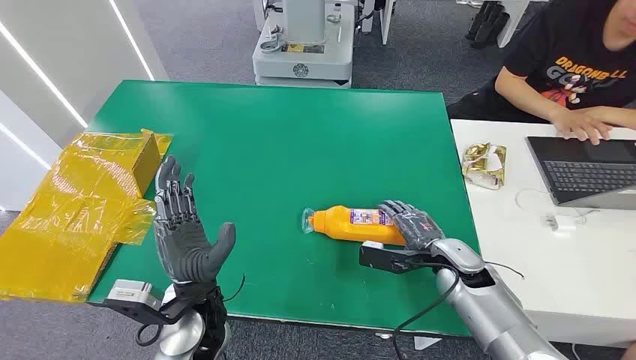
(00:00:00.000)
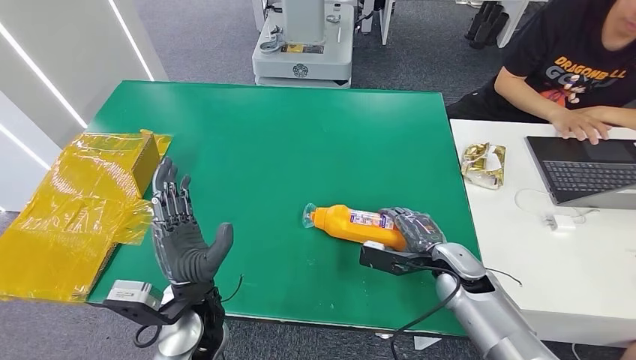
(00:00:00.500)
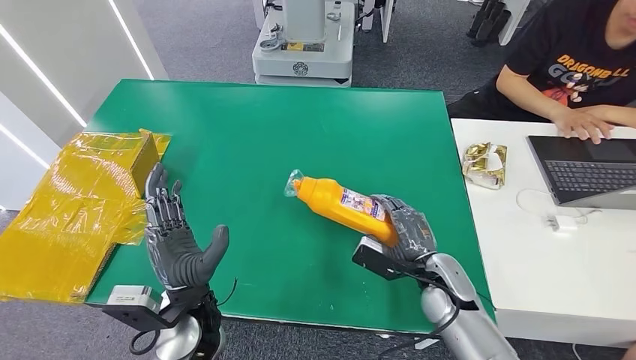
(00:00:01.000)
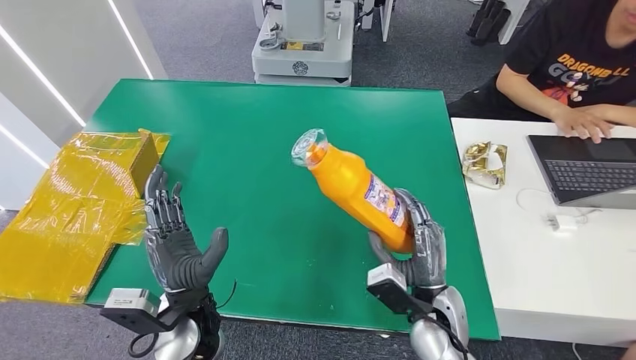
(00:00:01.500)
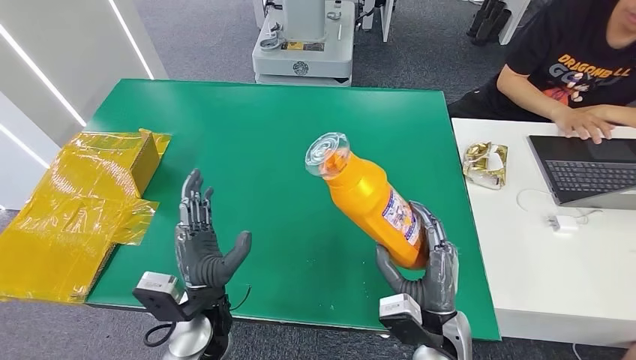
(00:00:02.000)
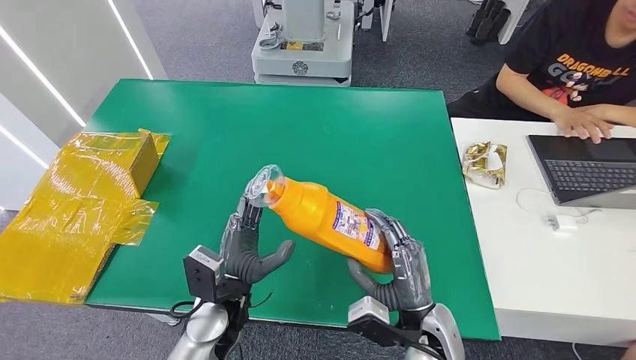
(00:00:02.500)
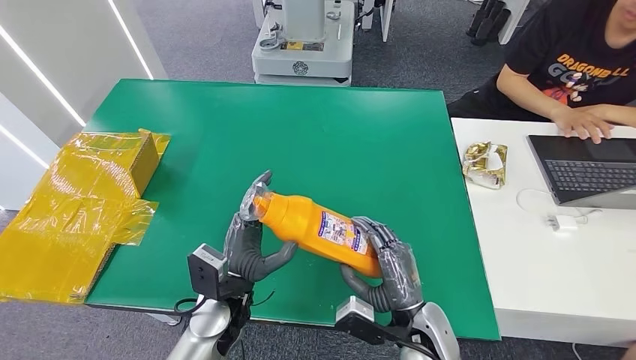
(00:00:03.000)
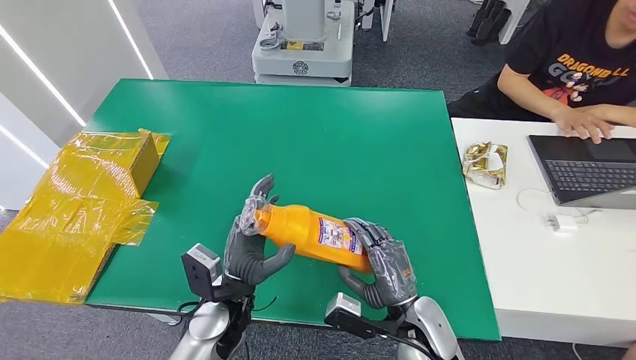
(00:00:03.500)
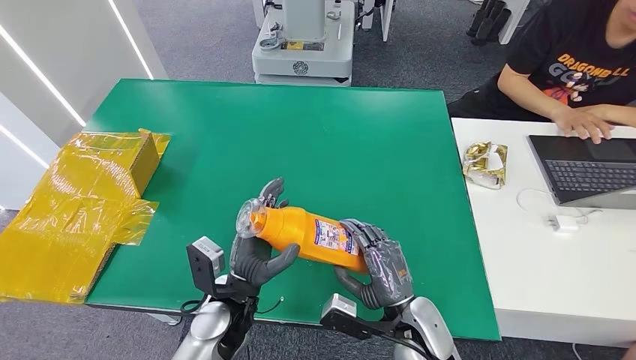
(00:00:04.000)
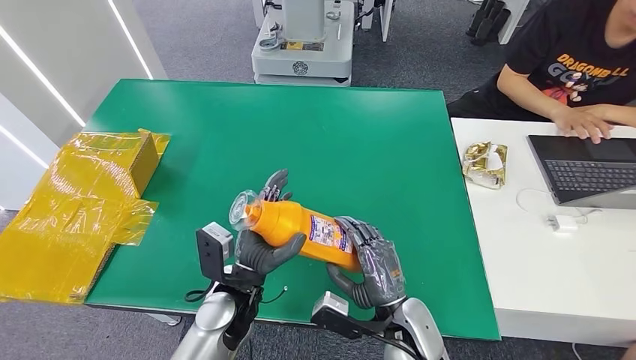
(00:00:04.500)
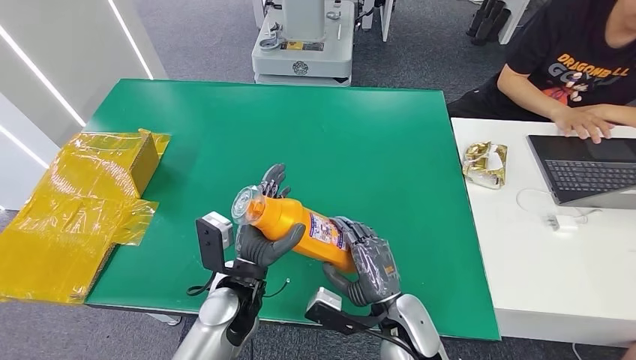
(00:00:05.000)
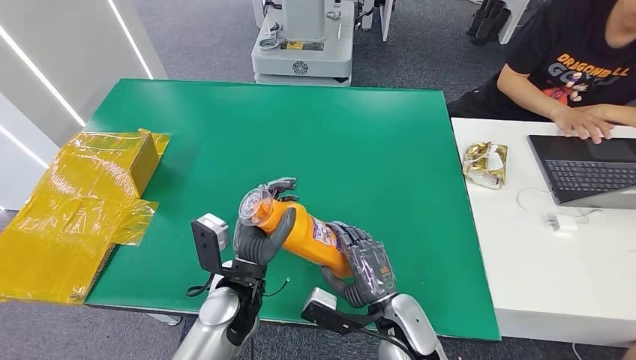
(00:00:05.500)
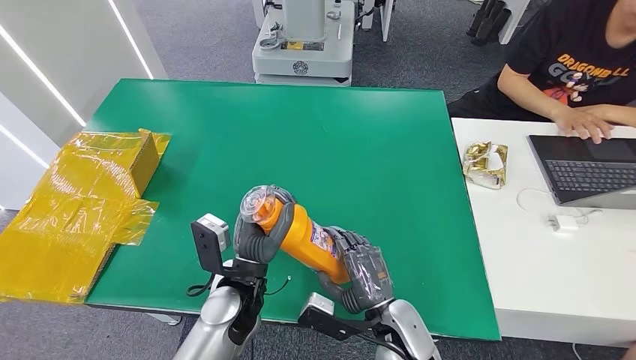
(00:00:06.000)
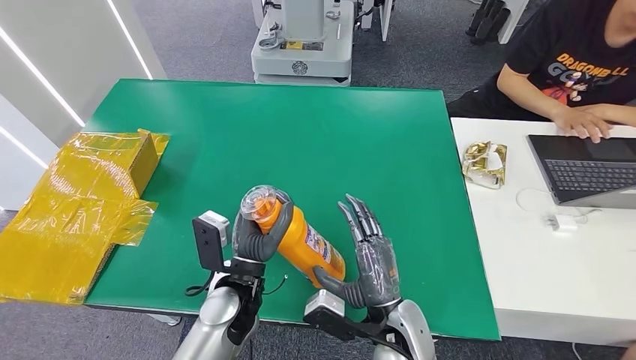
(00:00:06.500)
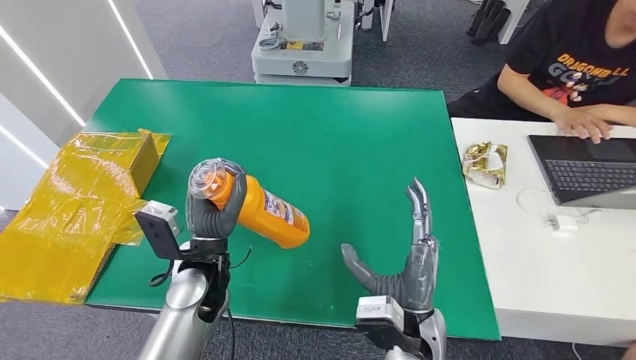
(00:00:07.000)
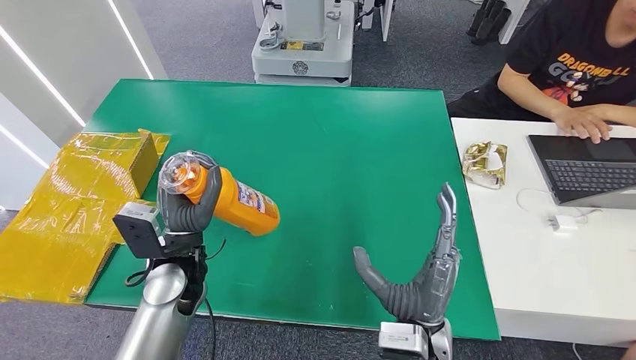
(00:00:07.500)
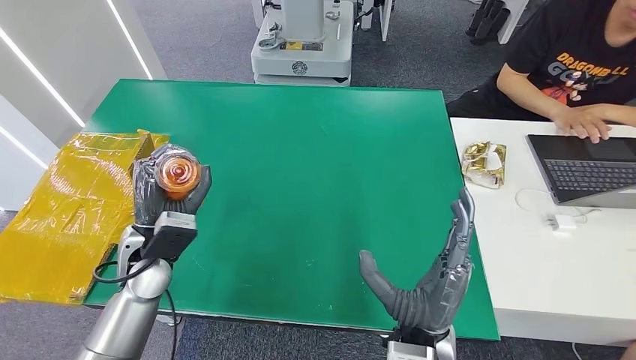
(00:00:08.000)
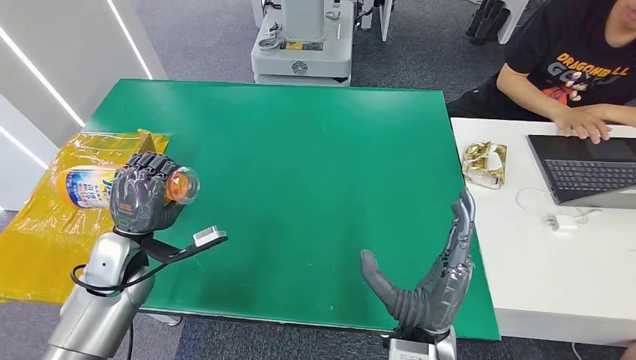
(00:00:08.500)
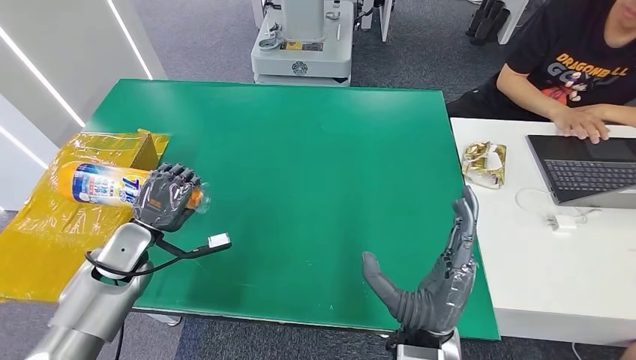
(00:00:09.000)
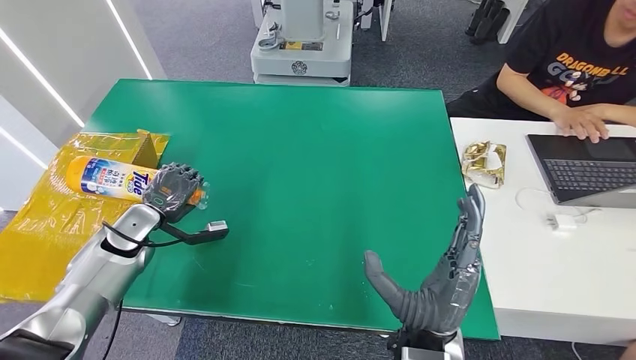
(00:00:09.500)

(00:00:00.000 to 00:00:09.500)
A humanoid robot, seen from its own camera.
Step, 00:00:00.000 - 00:00:02.000: Pick up the bottle from the table.
00:00:04.000 - 00:00:05.500: There are only small adjustments of the hands.
00:00:05.500 - 00:00:07.500: The right hand travels upward by roughly 5 cm; the left hand shifts about 10 cm to the left.
00:00:07.500 - 00:00:09.500: The left hand moves to the left and forward, about 20 cm.

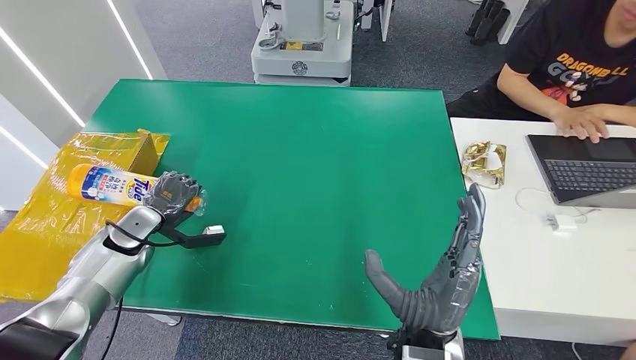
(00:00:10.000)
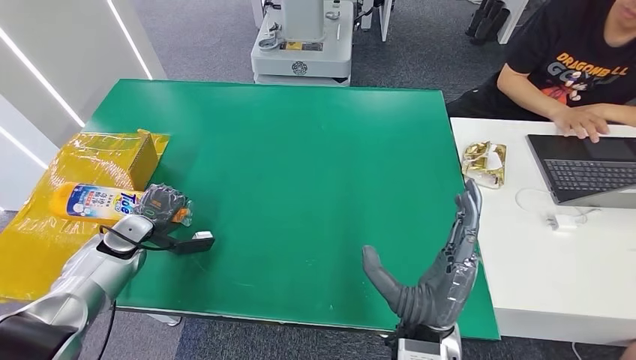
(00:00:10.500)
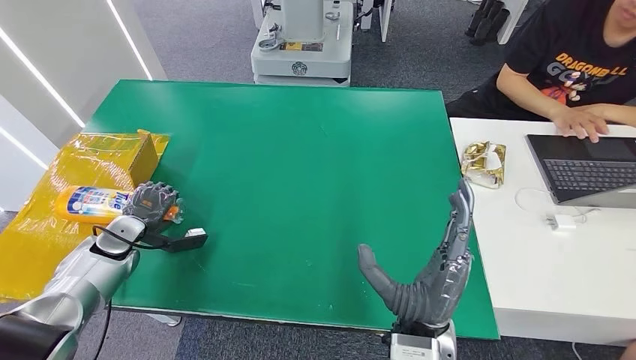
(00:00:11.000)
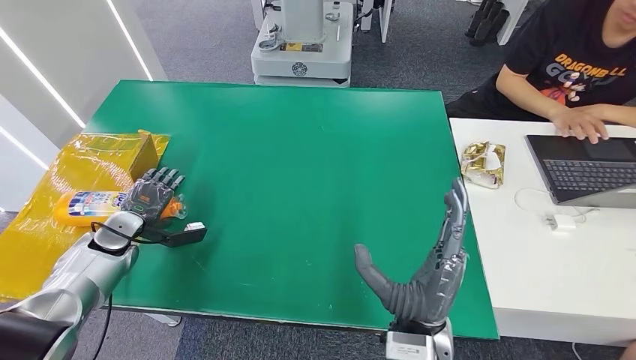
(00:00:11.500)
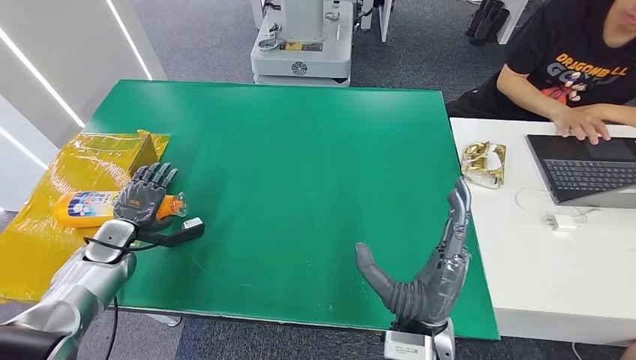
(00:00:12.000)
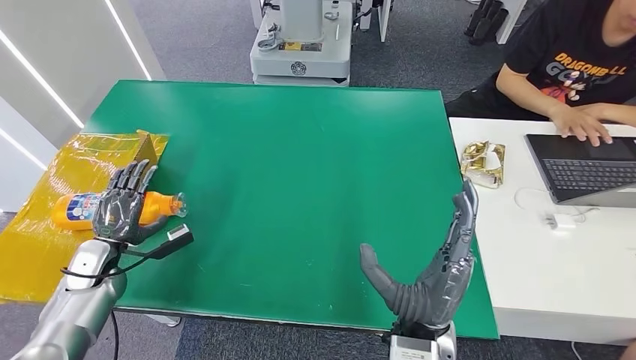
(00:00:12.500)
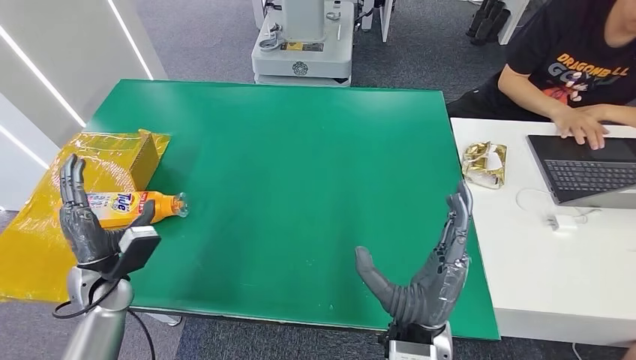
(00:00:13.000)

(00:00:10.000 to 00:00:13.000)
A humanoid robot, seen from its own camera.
Step, 00:00:10.000 - 00:00:13.000: Turn the bottle to the front side.
00:00:10.000 - 00:00:11.500: The hands make only small movements.
00:00:11.500 - 00:00:13.000: The left hand moves backward and to the right, approximately 10 cm.
